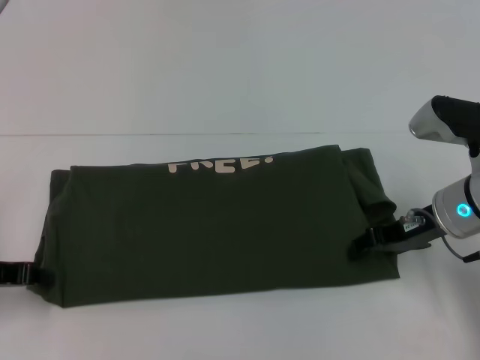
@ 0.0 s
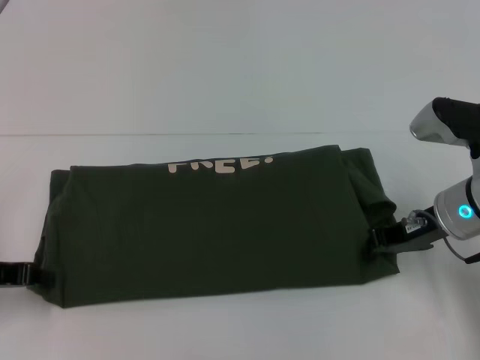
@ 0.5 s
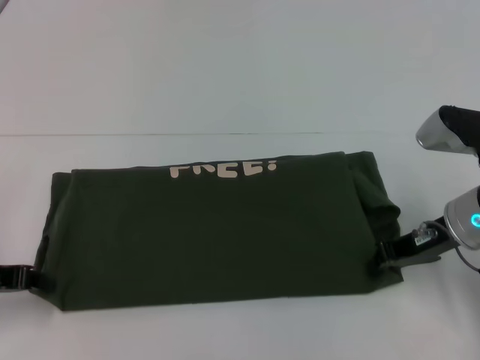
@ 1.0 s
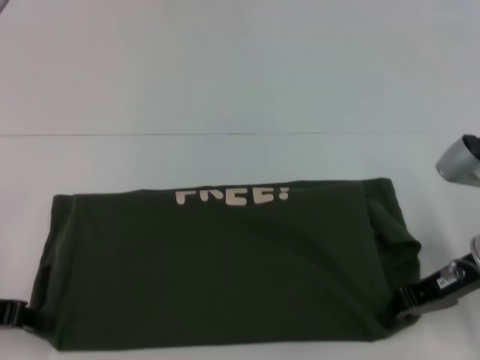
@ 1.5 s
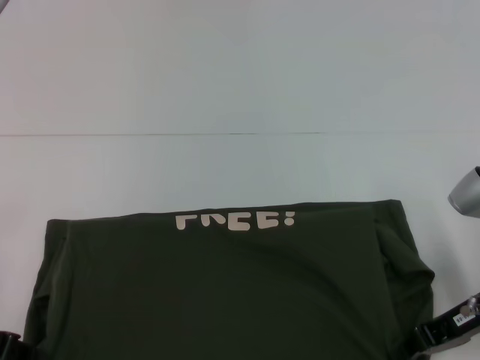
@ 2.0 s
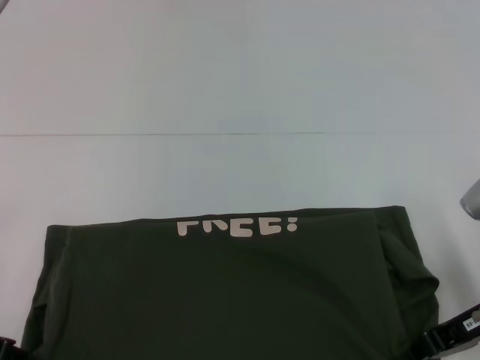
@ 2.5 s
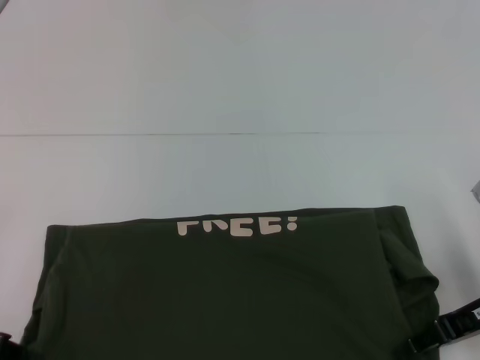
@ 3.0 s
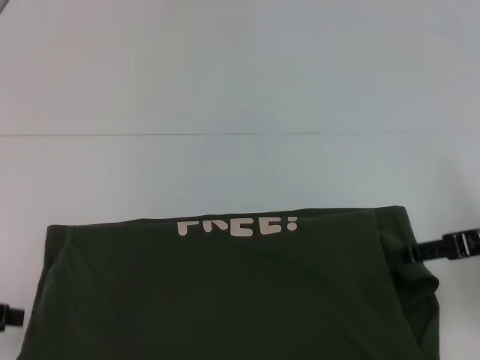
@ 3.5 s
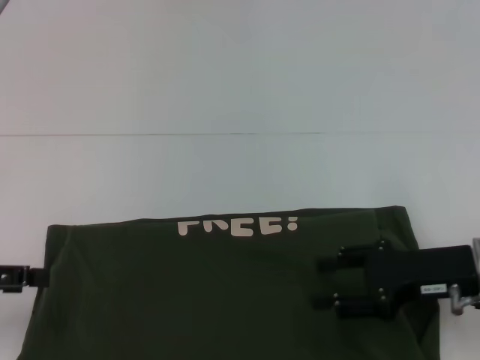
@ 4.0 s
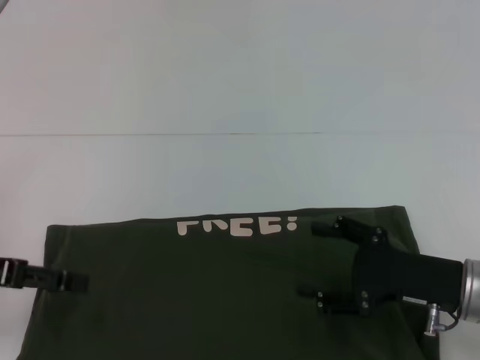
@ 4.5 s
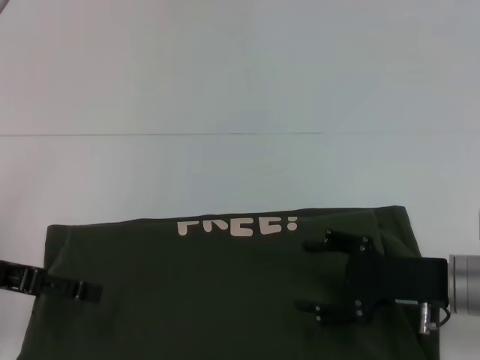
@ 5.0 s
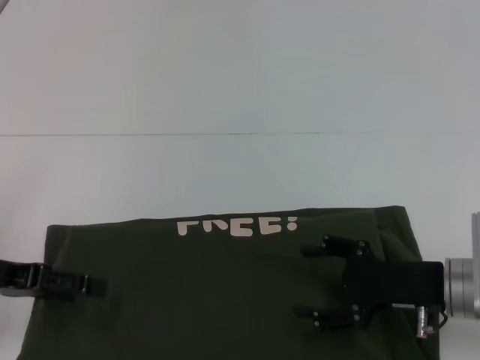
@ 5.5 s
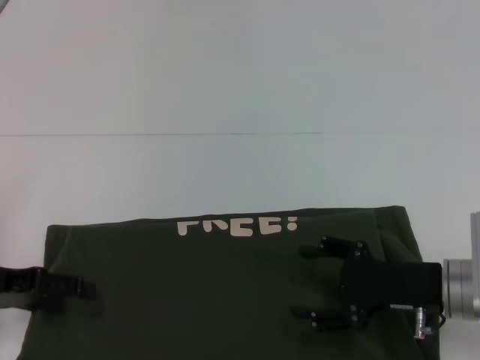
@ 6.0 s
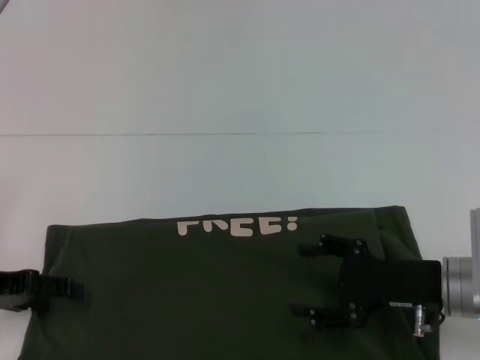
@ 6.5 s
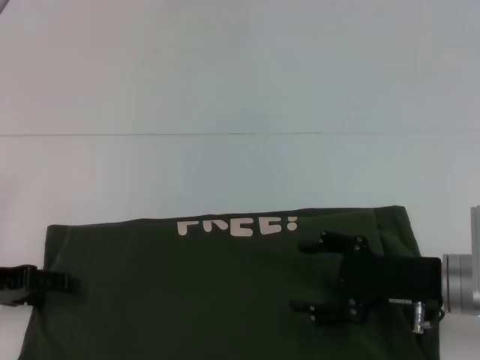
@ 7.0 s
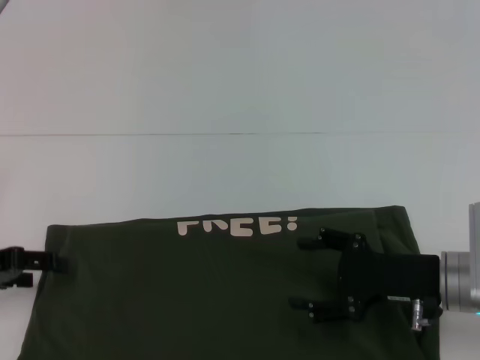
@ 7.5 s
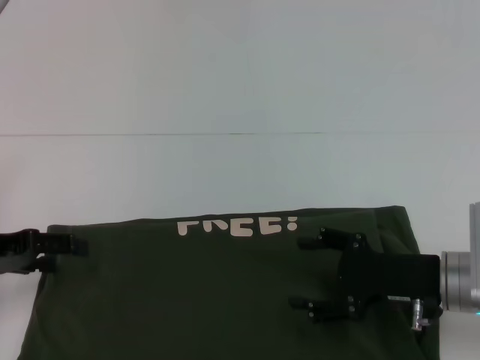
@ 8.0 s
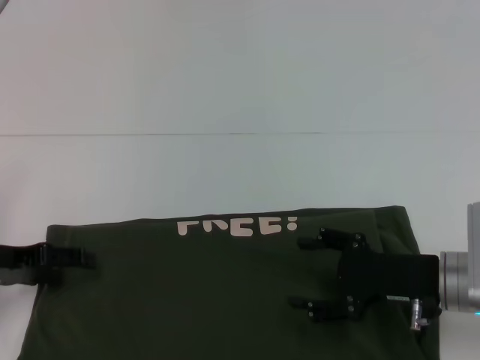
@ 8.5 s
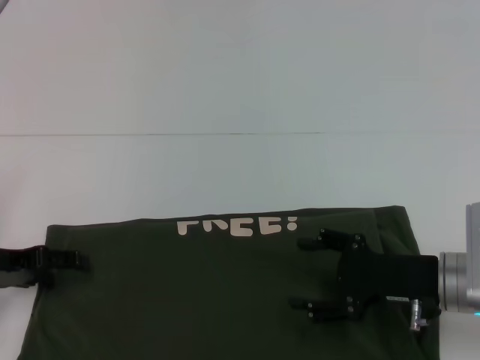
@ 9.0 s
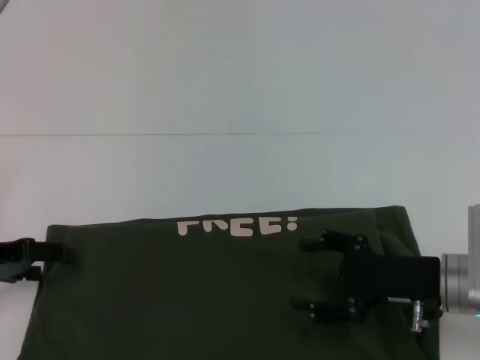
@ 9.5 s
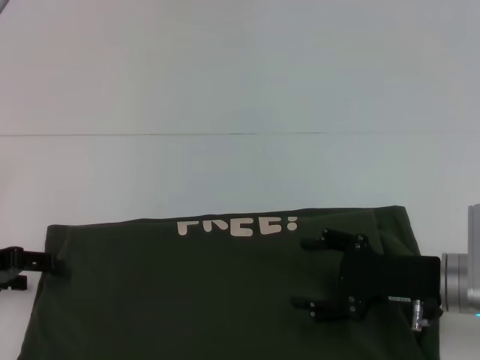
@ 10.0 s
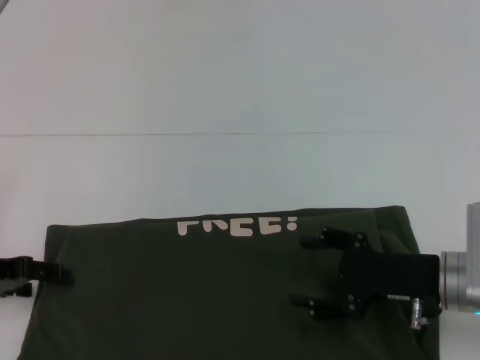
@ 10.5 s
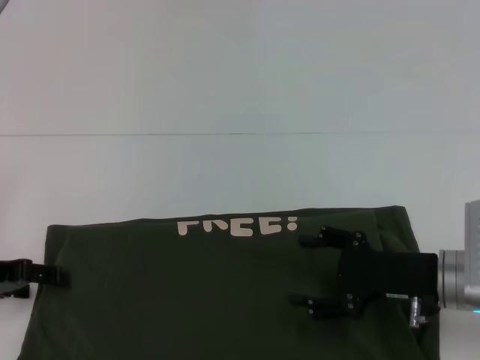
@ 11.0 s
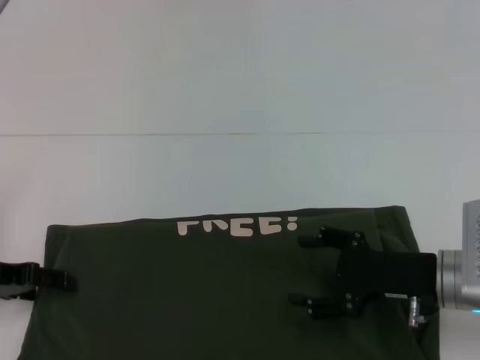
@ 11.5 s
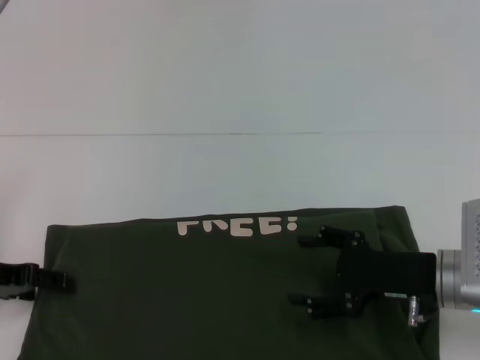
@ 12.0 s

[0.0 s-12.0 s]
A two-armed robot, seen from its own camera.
Step, 0.0 to 3.0 s: Pull the clothes with your left hand.
Step, 0.0 to 3.0 s: Pull the clothes with your right hand.
0.0 to 2.0 s: The right gripper is displaced backward by roughly 5 cm, and closes up; the left gripper ends up roughly 5 cm from where it was.
2.0 to 4.0 s: The right gripper opens up; the left gripper opens up.
4.0 to 6.0 s: The left gripper shifts by about 5 cm.
6.0 to 12.0 s: The grippers make only small movements.

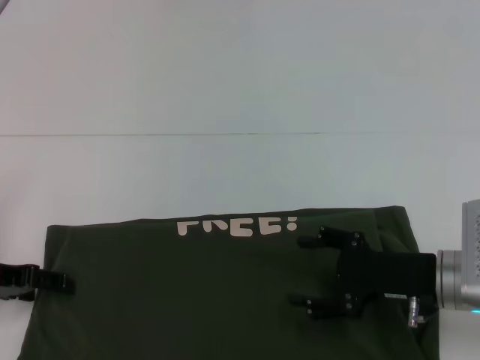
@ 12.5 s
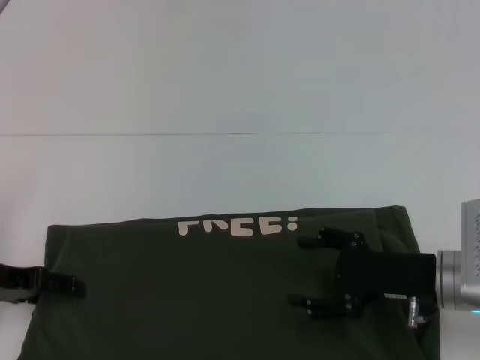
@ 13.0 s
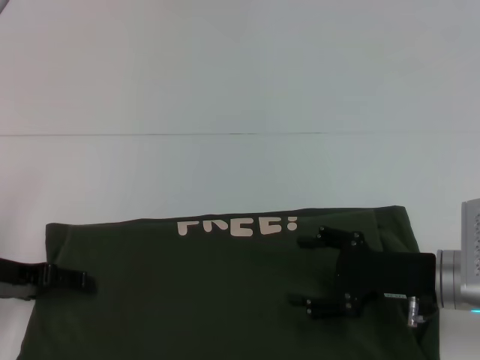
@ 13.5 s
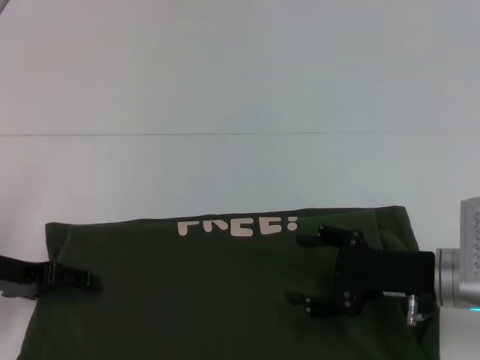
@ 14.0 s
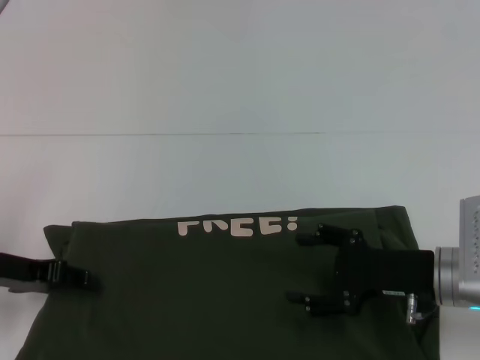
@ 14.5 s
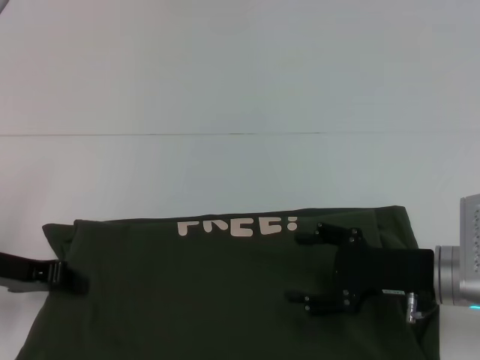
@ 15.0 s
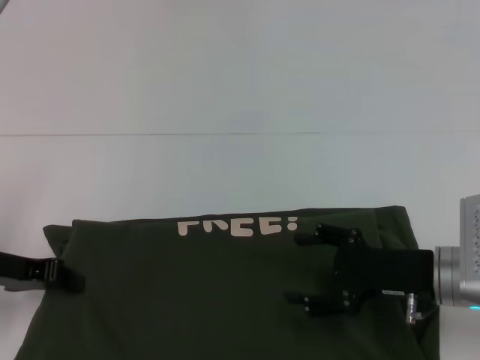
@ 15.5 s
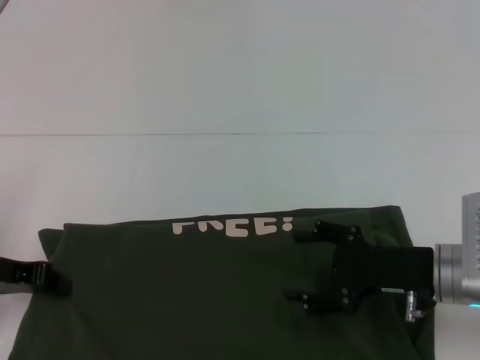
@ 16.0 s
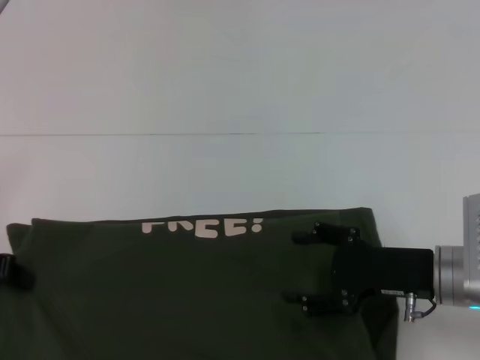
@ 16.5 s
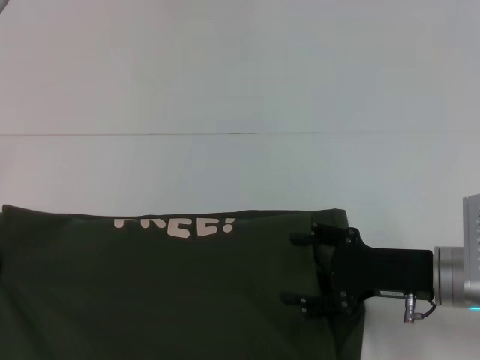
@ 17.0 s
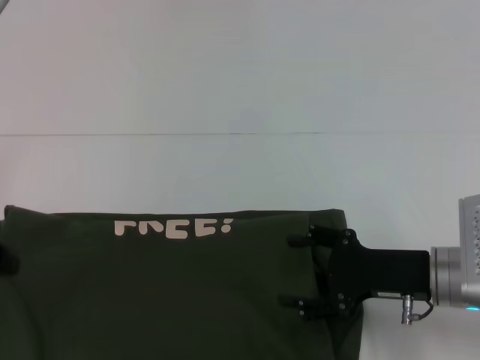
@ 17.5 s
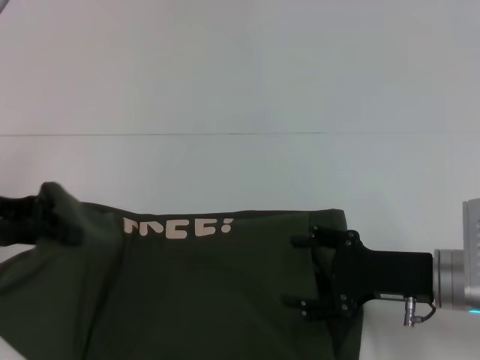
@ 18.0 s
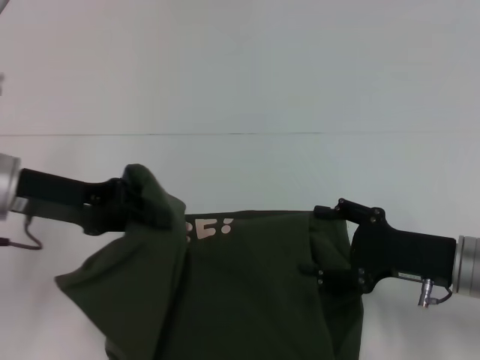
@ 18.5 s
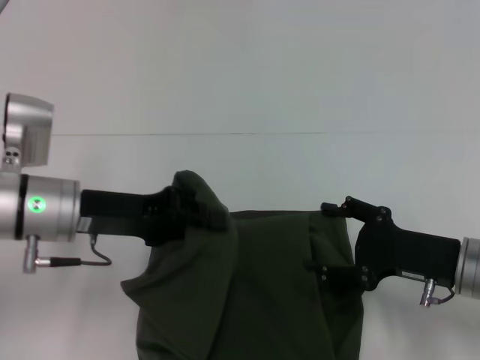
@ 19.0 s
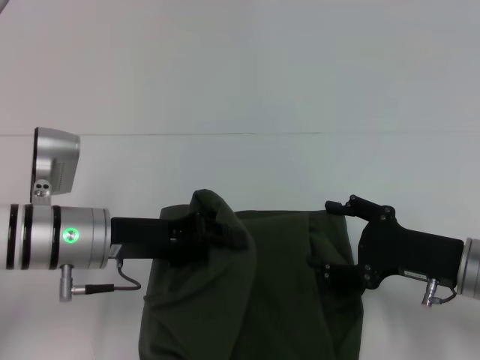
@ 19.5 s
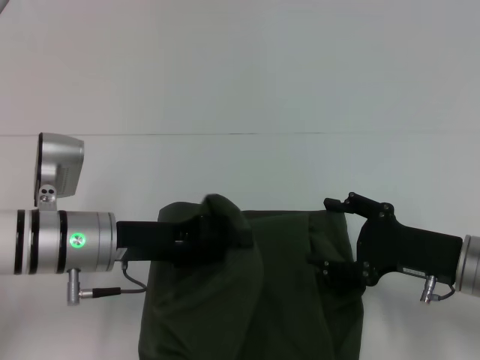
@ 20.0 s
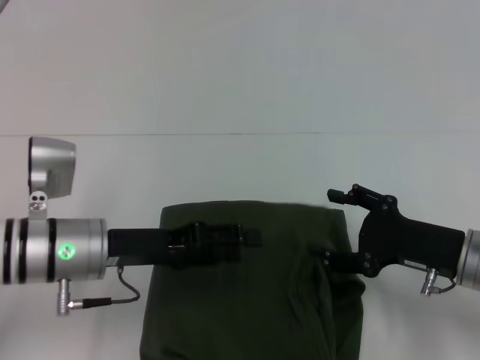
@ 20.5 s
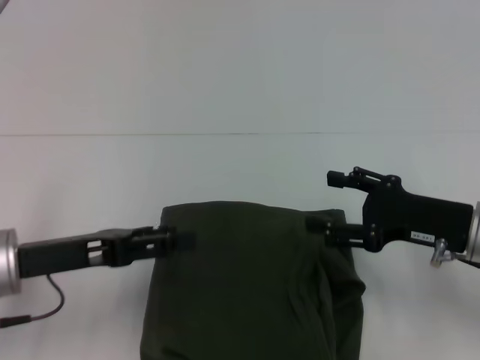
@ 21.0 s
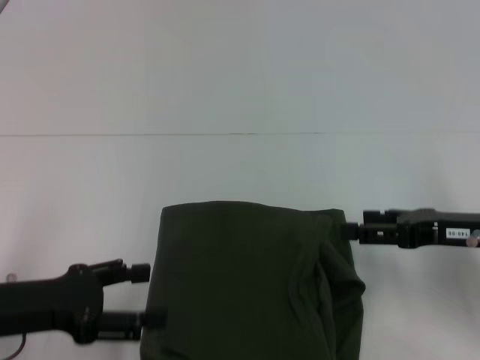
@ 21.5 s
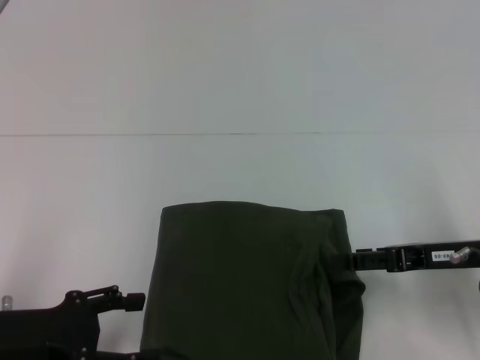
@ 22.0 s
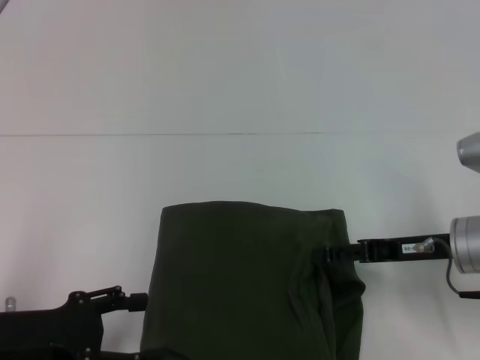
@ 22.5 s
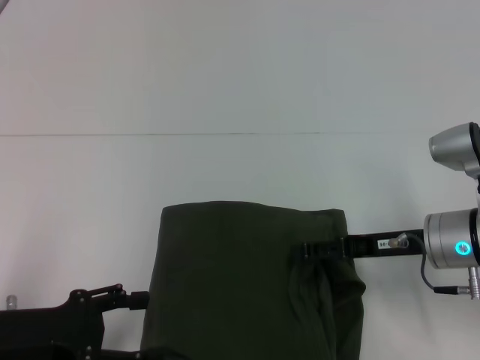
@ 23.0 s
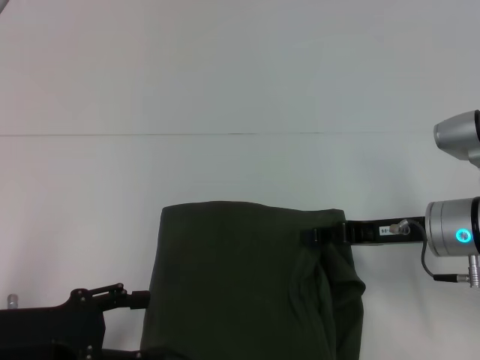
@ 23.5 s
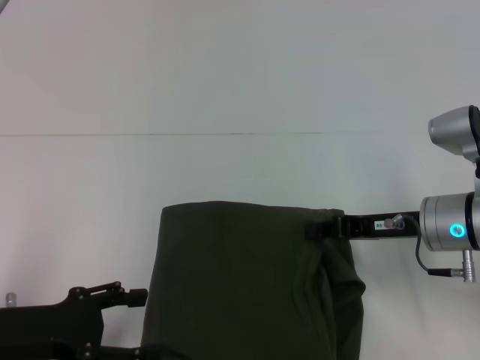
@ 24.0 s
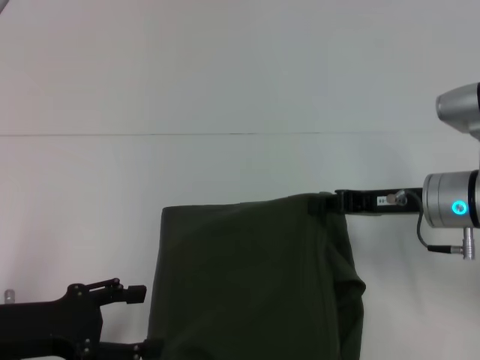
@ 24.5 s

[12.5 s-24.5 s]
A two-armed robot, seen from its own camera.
Step, 12.5 to 20.5 s: Fold the clothes with your left hand.
12.5 to 14.5 s: The grippers move only a little.
14.5 to 16.5 s: The left gripper closes its fingers.
16.5 to 18.5 s: The left gripper heads to the right, covering roughly 10 cm.
18.5 to 20.5 s: The left gripper shifts approximately 10 cm downward and to the right, and opens.
20.5 to 22.5 s: The left gripper travels to the left and backward by about 10 cm, and opens.
22.5 to 24.5 s: The right gripper closes.

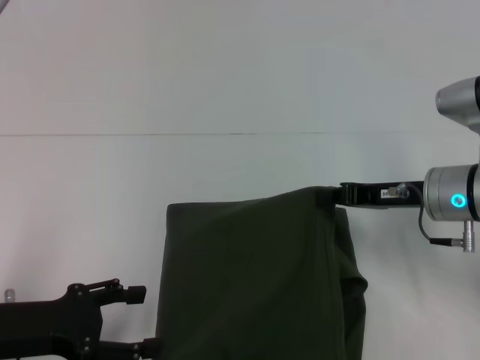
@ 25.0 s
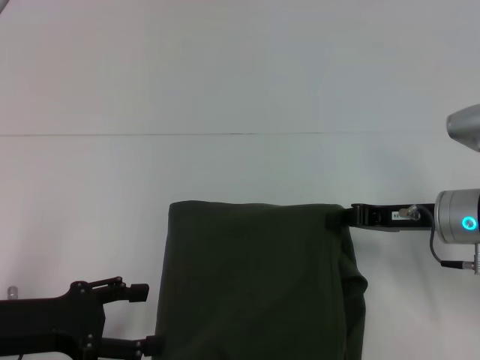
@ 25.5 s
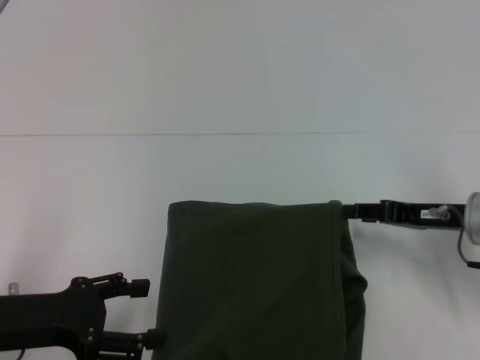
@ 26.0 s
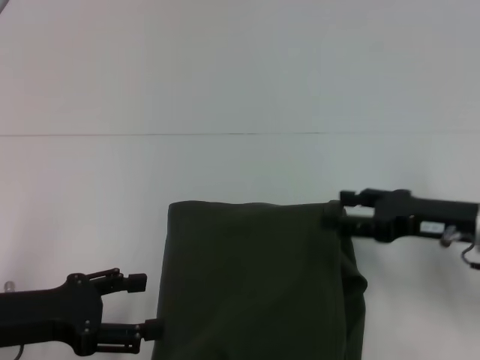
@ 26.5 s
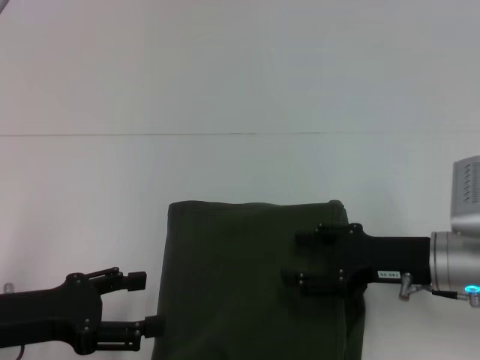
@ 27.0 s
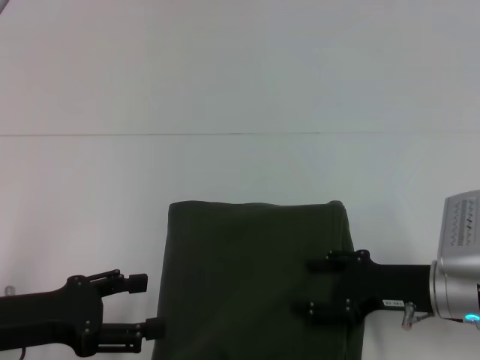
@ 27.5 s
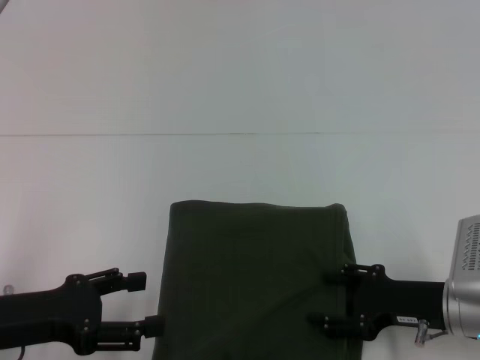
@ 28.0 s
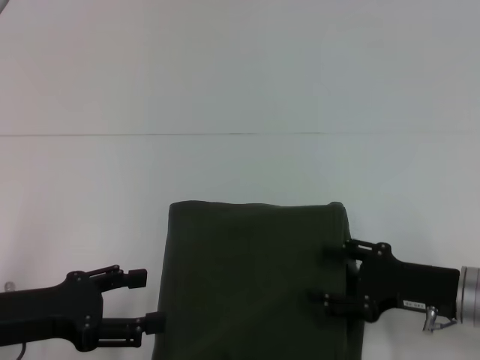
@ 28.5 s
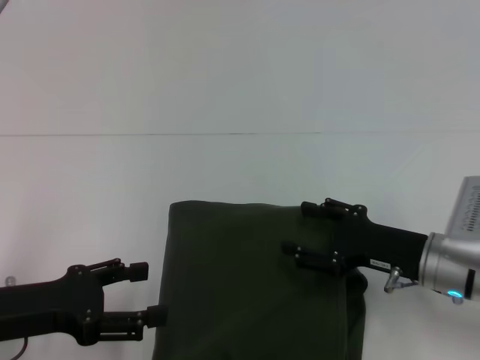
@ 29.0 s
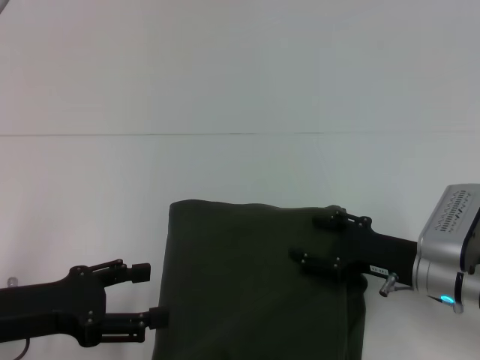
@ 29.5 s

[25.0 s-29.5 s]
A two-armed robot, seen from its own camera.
25.0 to 27.0 s: The right gripper is displaced backward by some 5 cm, and opens.
27.0 to 29.5 s: The grippers make only small movements.
